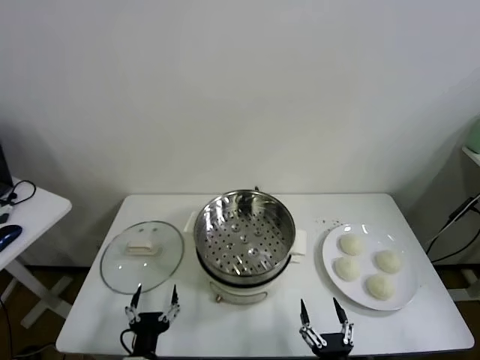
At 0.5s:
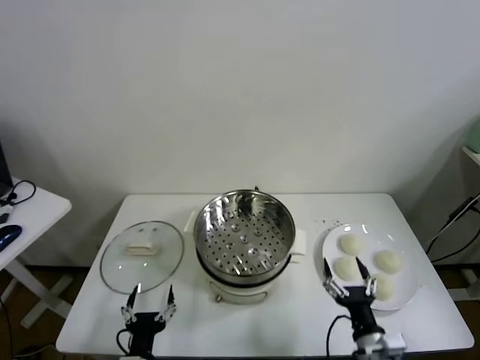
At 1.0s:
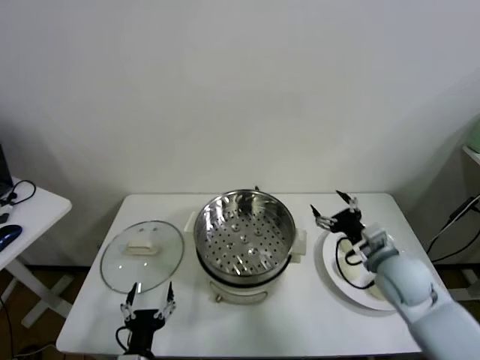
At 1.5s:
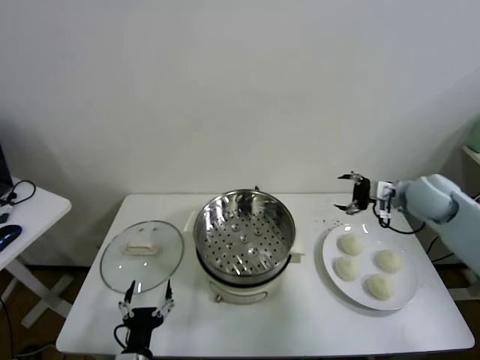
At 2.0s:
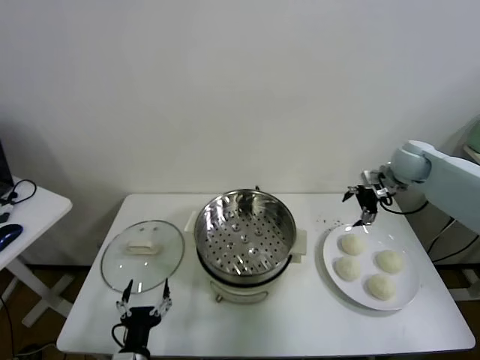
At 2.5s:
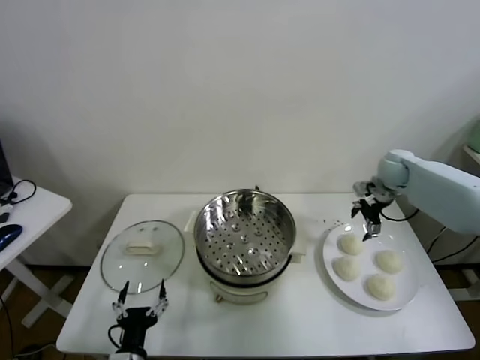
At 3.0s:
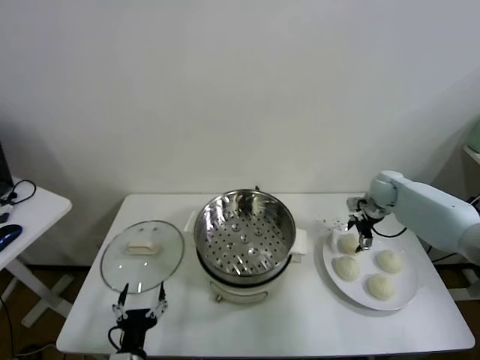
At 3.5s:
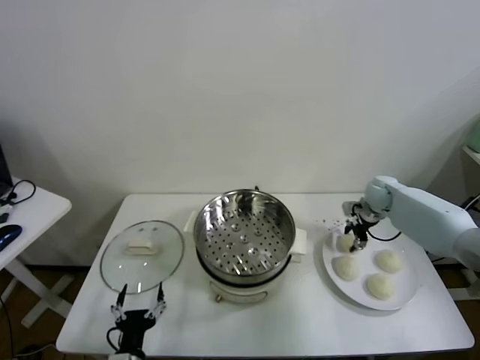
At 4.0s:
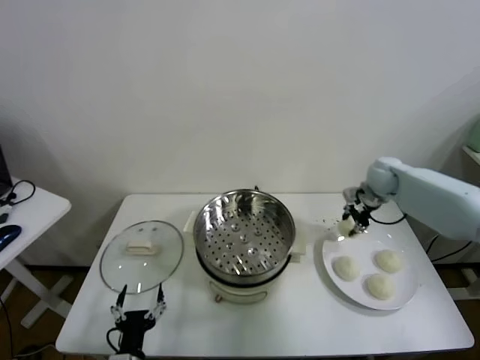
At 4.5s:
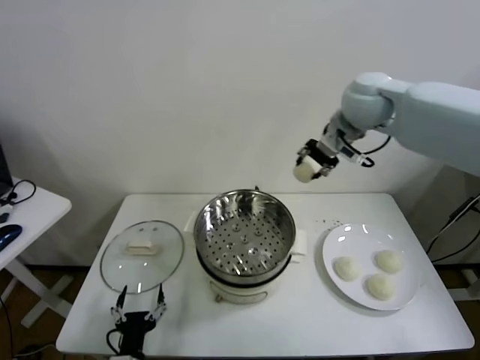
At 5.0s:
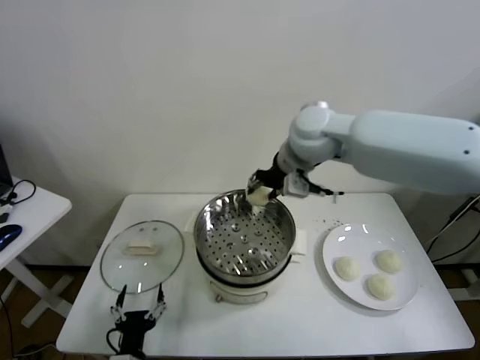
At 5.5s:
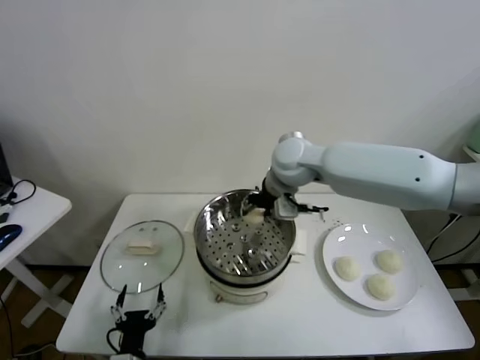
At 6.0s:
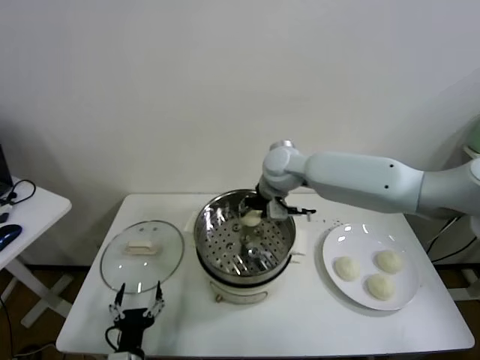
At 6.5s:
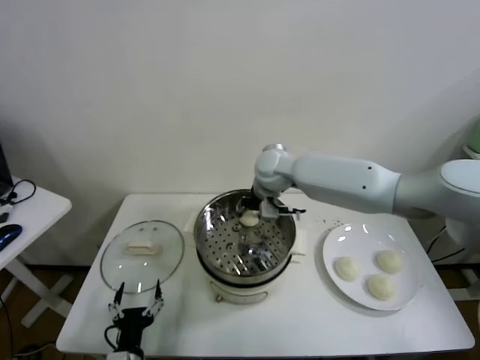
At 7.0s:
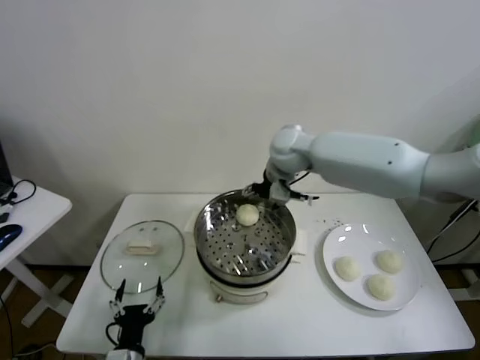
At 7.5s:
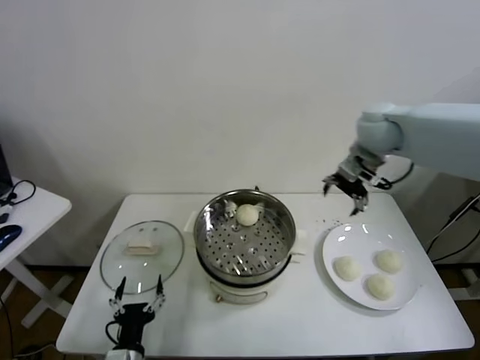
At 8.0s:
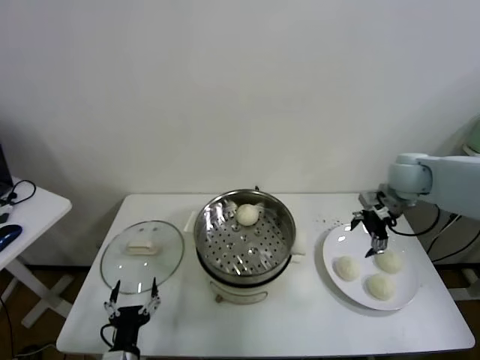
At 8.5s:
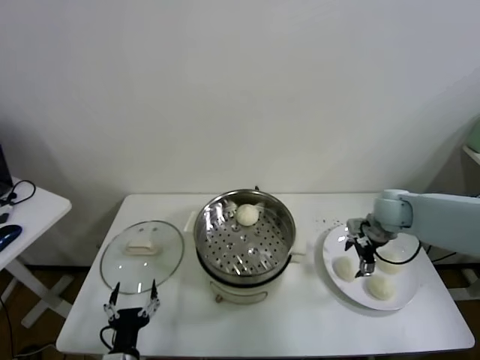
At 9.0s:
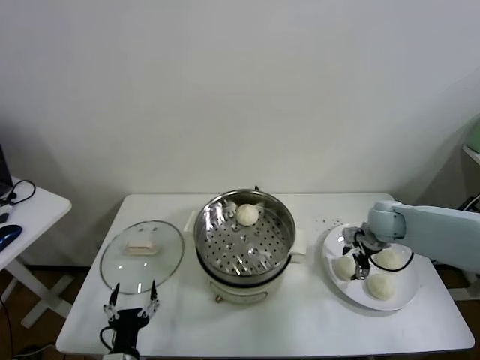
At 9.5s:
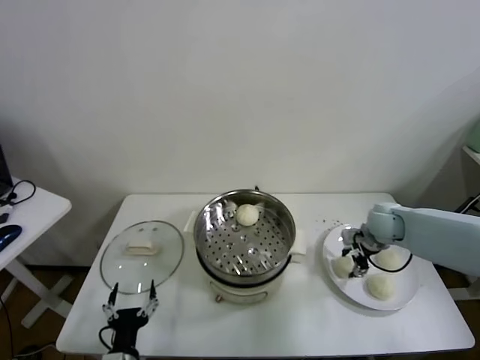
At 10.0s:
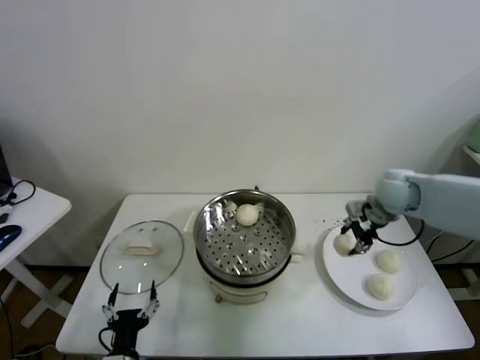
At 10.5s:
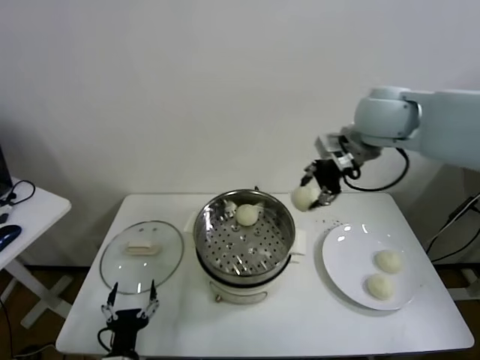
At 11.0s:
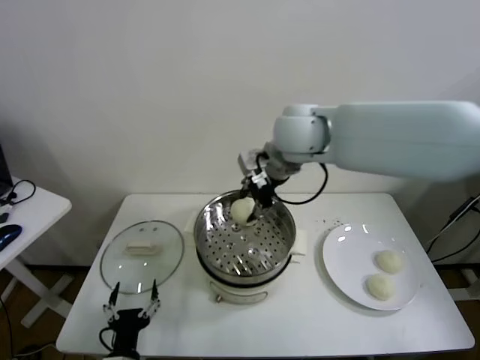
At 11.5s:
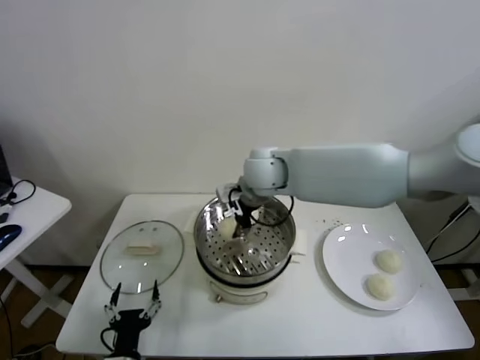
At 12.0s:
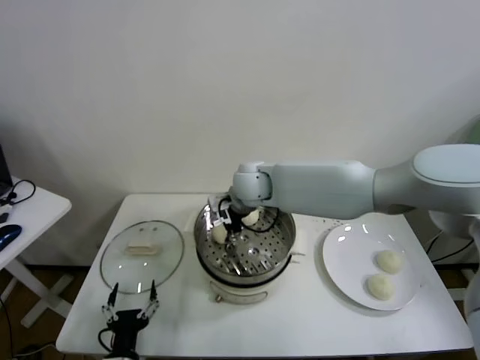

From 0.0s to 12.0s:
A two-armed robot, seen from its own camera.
Task of the whole recording: take steamed baozi put them in steamer.
Step, from 0.0s to 3.0s: Grasp the baozi in the plate with right gripper.
Step, from 4.0s to 6.5s: Place the baozi on the steamer with right gripper.
Step, from 7.5s to 9.0s: Grasp the baozi in the plate with right gripper.
From 2.0s to 4.0s: The right gripper is displaced downward by roughly 5 cm, and closes.
From 4.0s to 6.0s: The right gripper is displaced to the left by approximately 30 cm.
From 6.0s to 8.0s: The right gripper is displaced to the right by roughly 30 cm, and opens its fingers.
From 8.0s to 10.0s: The right gripper moves about 15 cm downward and comes back, and closes up.
From 10.0s to 12.0s: The right gripper heads to the left, covering approximately 30 cm.

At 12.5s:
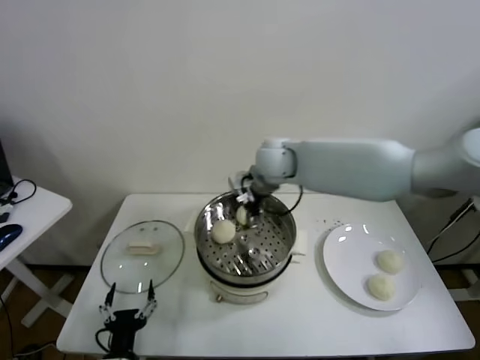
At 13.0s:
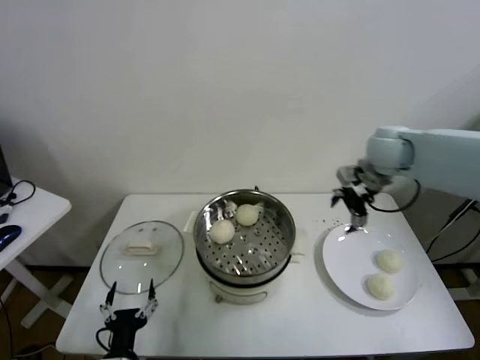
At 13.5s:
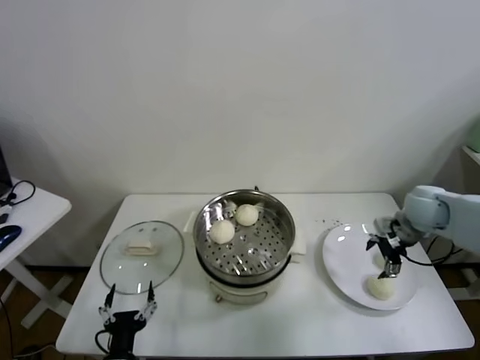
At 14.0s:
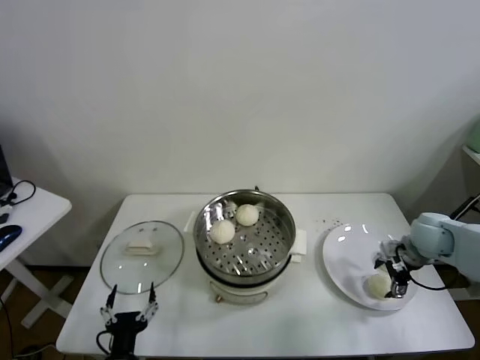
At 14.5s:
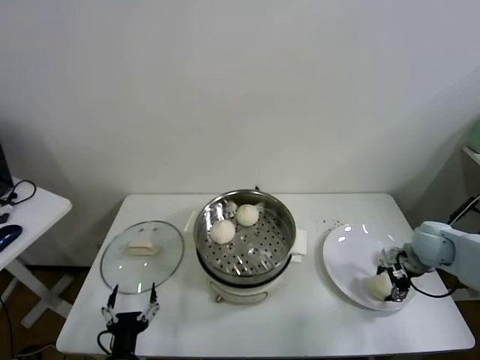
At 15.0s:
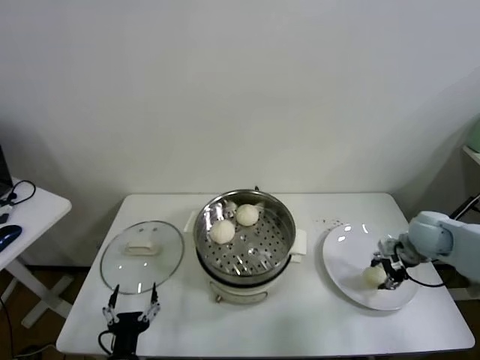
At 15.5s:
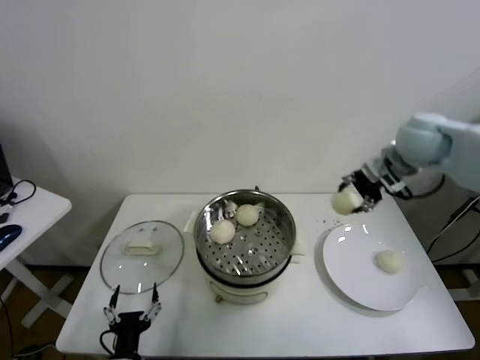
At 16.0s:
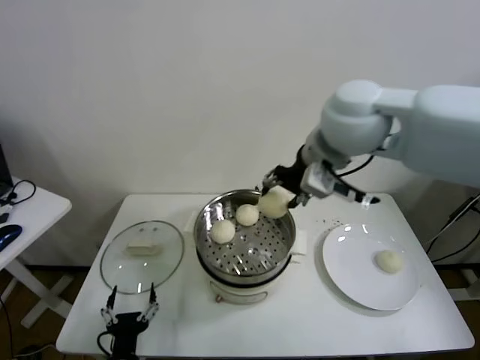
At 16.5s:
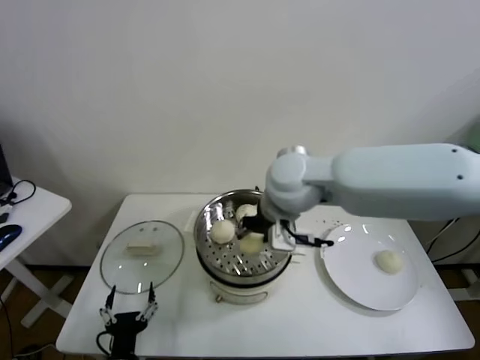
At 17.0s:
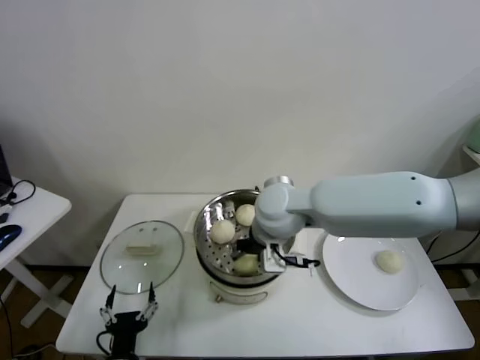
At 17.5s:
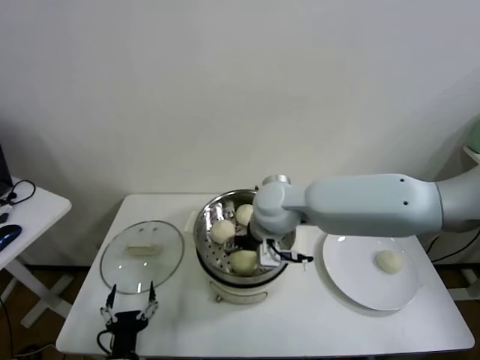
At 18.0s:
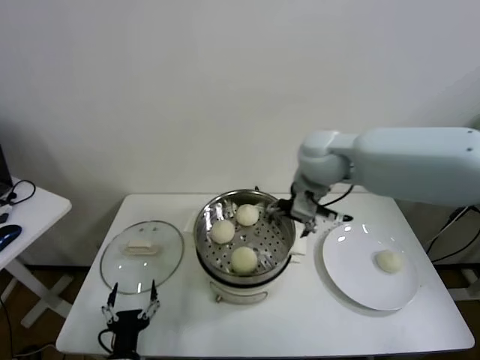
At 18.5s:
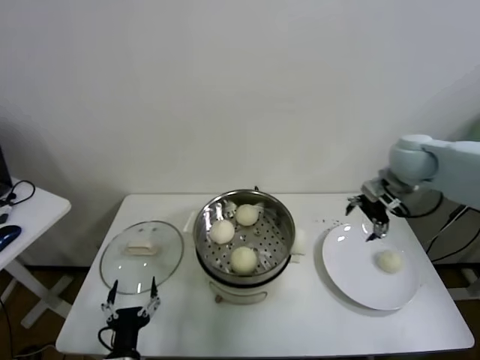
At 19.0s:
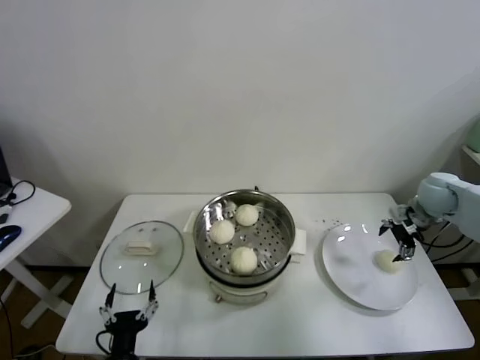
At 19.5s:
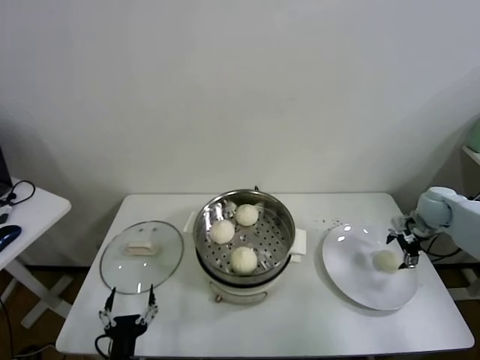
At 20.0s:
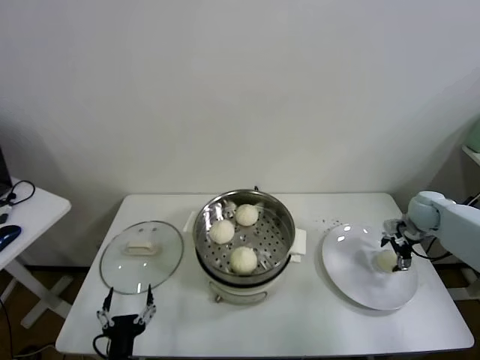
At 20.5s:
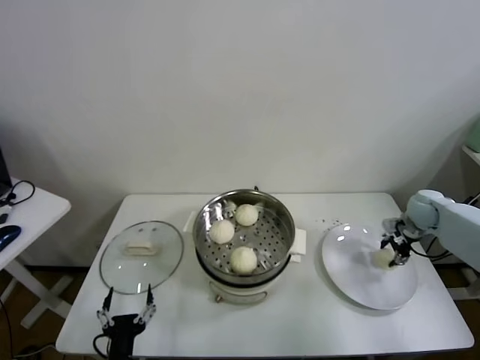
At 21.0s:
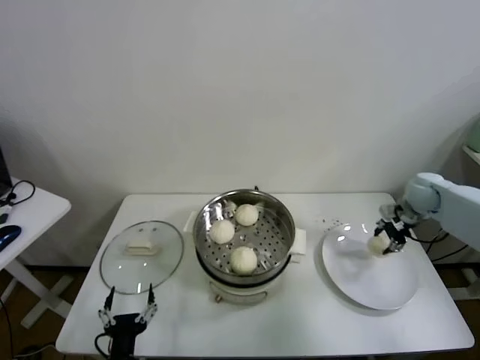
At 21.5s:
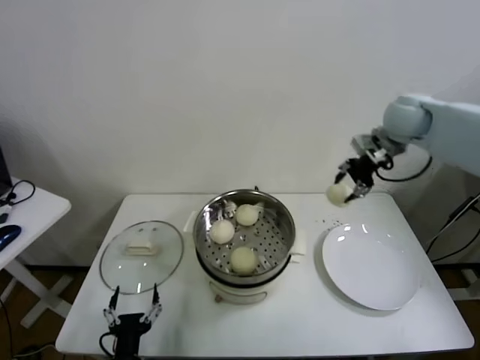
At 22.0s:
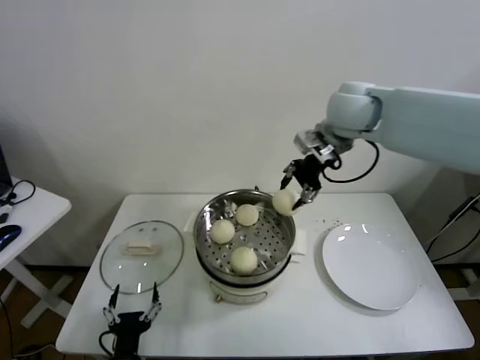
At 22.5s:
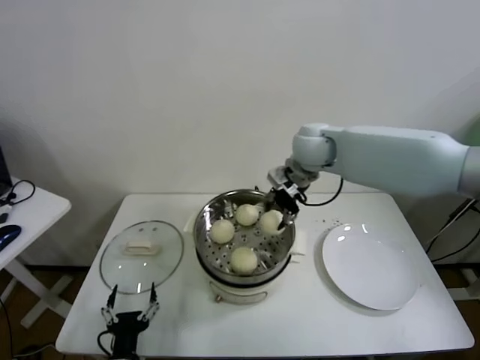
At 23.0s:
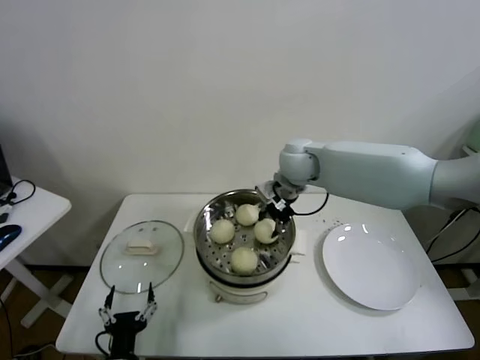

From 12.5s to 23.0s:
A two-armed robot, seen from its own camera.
Task of the whole recording: take steamed baozi put them in steamer.
Step, from 12.5s to 14.5s: Grasp the baozi in the plate with right gripper.
Step, from 15.0s to 17.5s: Place the baozi on the steamer with right gripper.
Step, from 18.0s to 20.0s: Grasp the baozi in the plate with right gripper.
From 12.5s to 14.5s: The right gripper shifts approximately 40 cm to the right and downward.
From 14.5s to 16.5s: The right gripper heads to the left and upward, covering roughly 40 cm, and closes its fingers.
From 16.5s to 19.0s: The right gripper travels to the right by approximately 35 cm, and opens up.
From 19.0s to 21.0s: The right gripper closes.
From 21.0s to 23.0s: The right gripper shifts some 35 cm to the left.

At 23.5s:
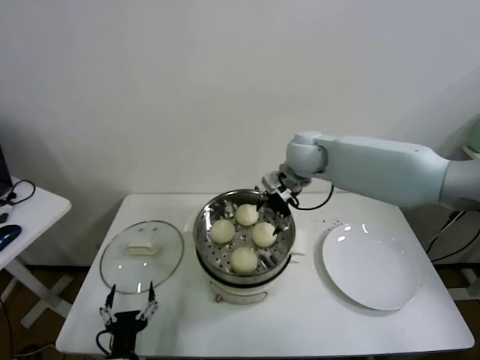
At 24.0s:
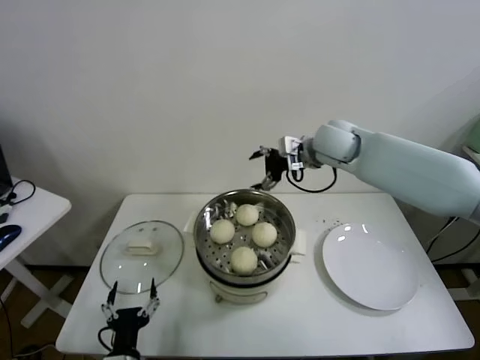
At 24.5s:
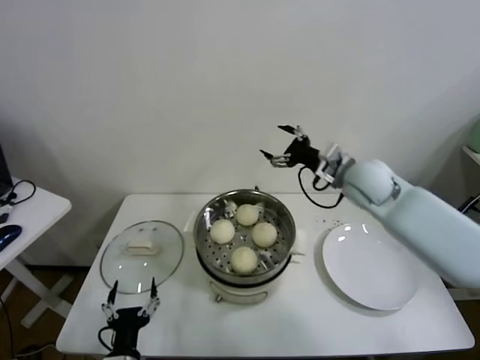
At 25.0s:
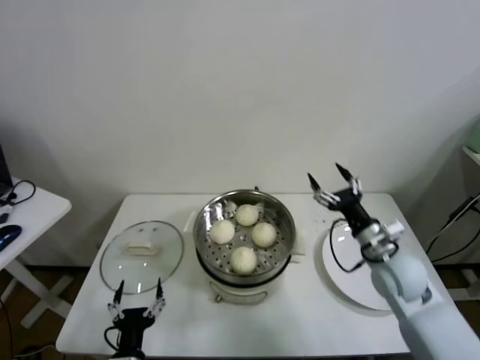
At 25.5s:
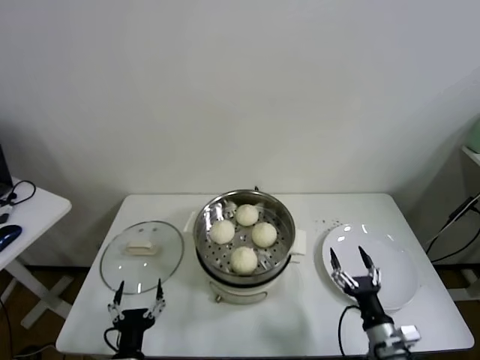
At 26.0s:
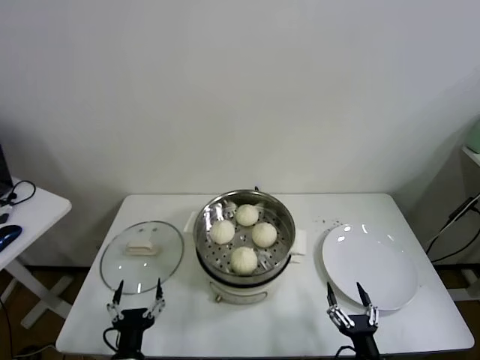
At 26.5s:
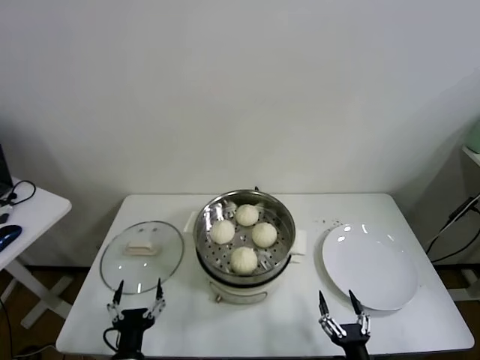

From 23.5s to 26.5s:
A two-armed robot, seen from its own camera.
Task of the whole recording: take steamed baozi put them in steamer.
From 23.5s to 25.0s: The right gripper goes roughly 30 cm backward, to the right and downward.
From 25.0s to 26.5s: The right gripper shifts about 35 cm backward and downward.
